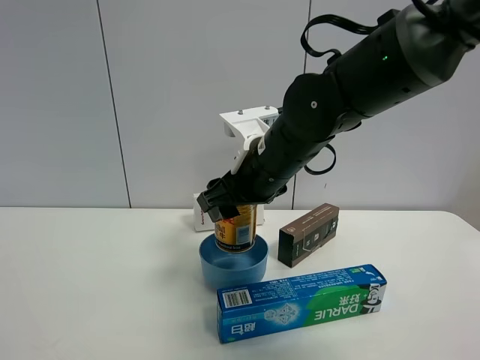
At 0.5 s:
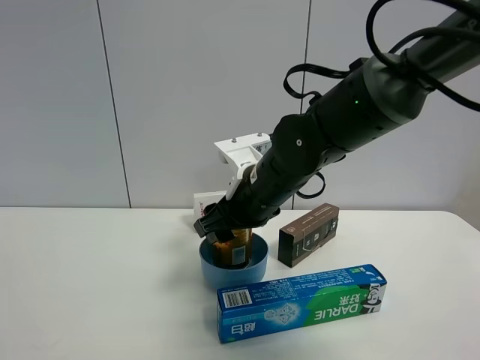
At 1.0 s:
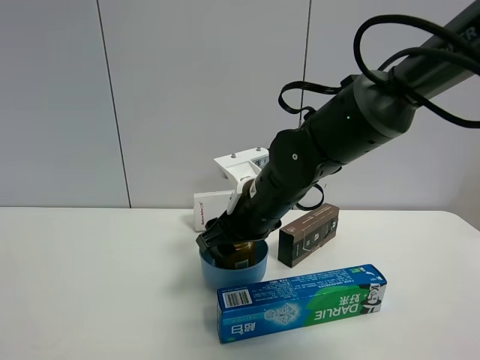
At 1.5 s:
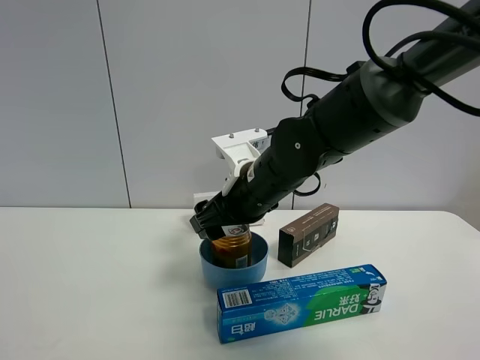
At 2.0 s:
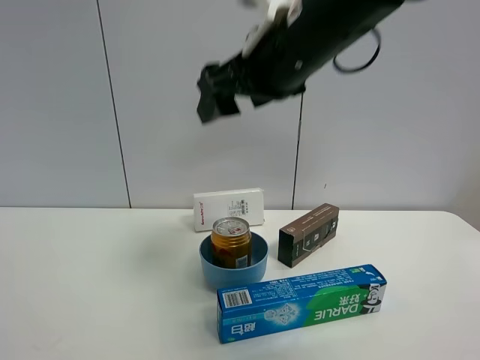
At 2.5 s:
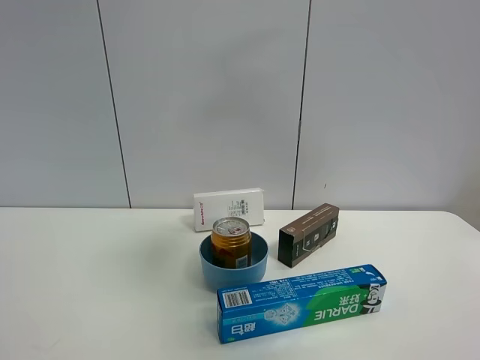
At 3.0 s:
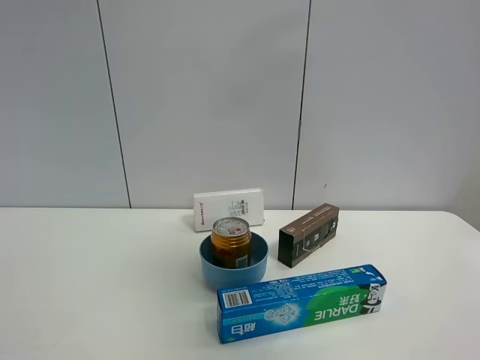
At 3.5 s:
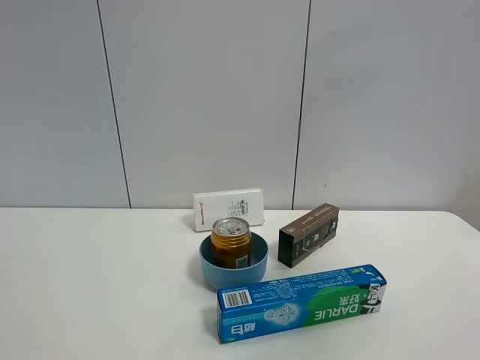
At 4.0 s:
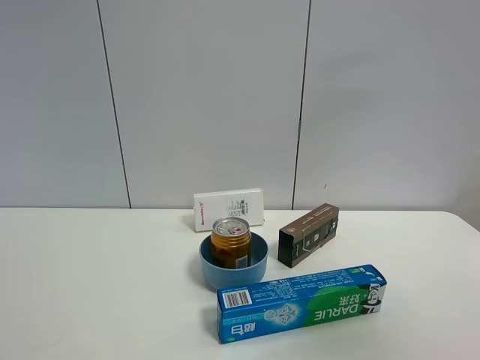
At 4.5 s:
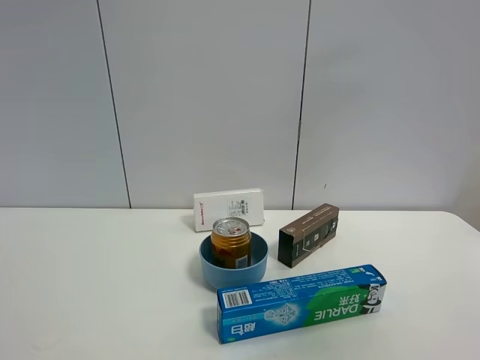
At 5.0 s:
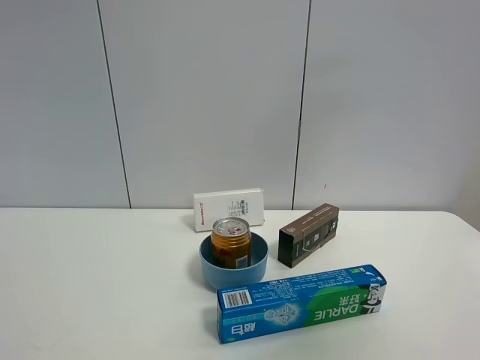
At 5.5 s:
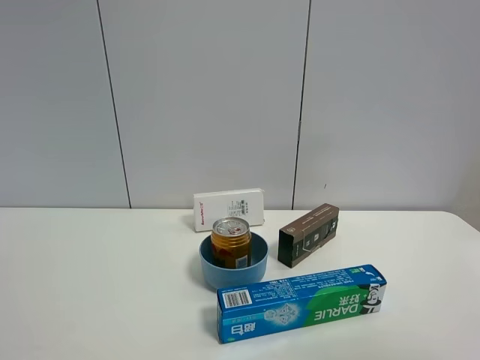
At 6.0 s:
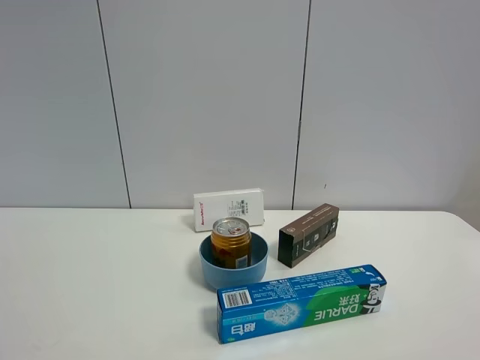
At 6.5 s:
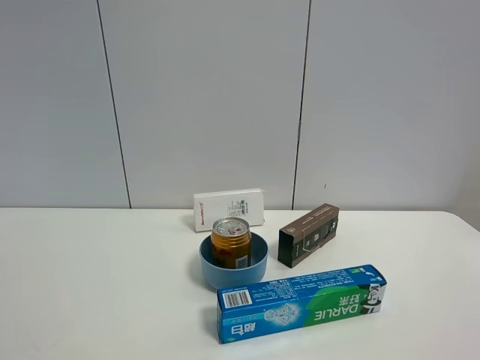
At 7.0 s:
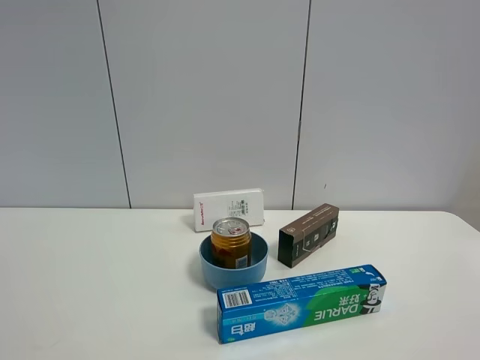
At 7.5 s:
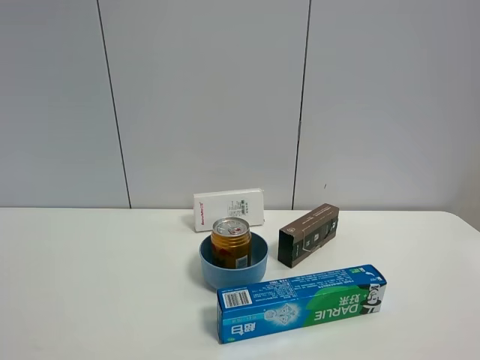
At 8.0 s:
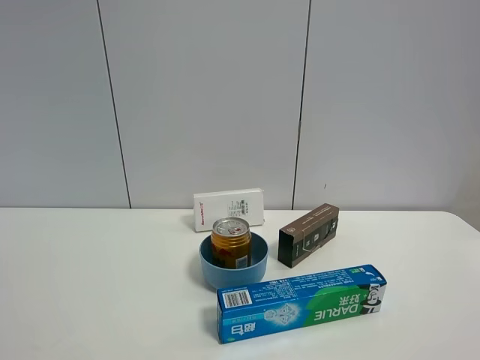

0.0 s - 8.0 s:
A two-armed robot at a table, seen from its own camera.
Task of the whole recording: the gripper move the object.
0.0 s - 2.0 s: The right gripper is displaced upward by approximately 15 cm, and opens its fingers.
2.0 s - 4.0 s: The right gripper moves to the right, backward and upward, approximately 40 cm.
4.0 s - 6.0 s: The right gripper goes about 20 cm downward.
